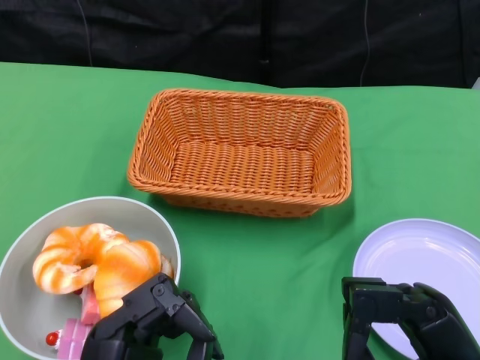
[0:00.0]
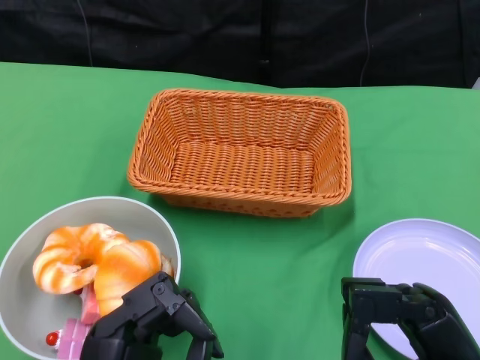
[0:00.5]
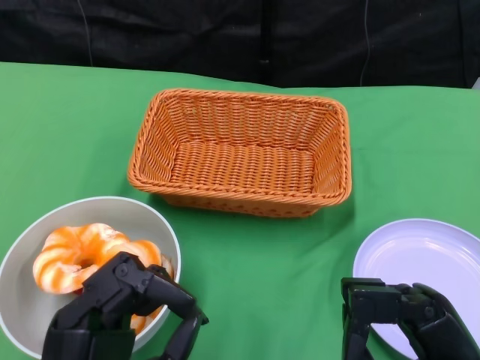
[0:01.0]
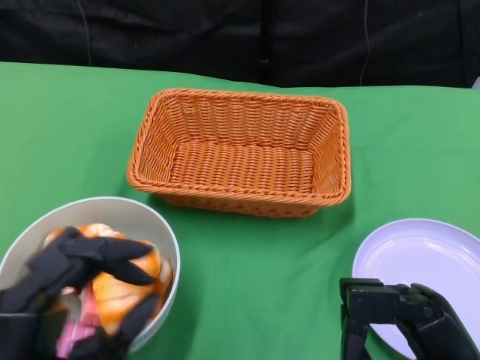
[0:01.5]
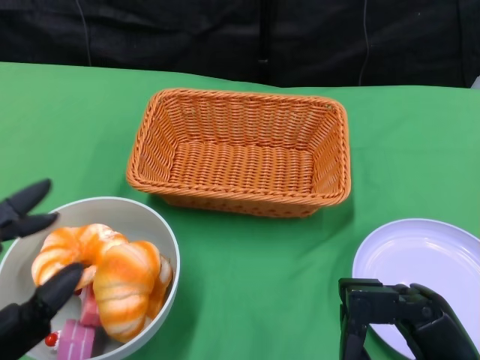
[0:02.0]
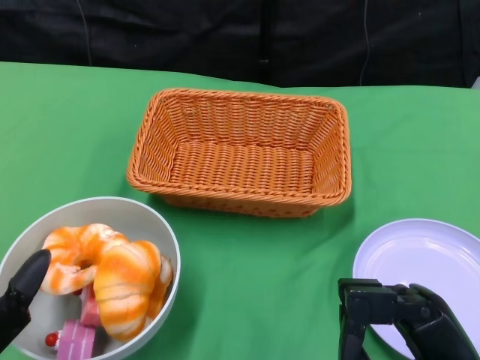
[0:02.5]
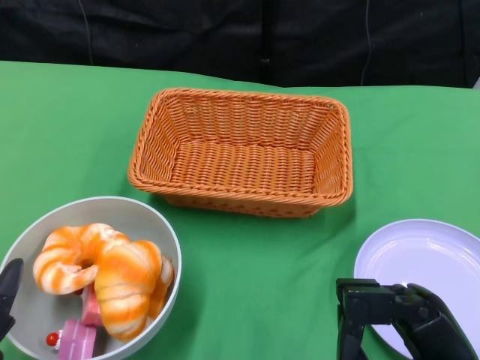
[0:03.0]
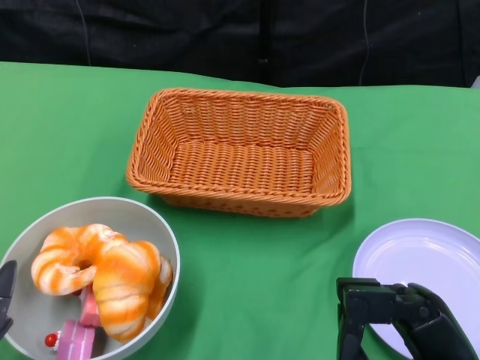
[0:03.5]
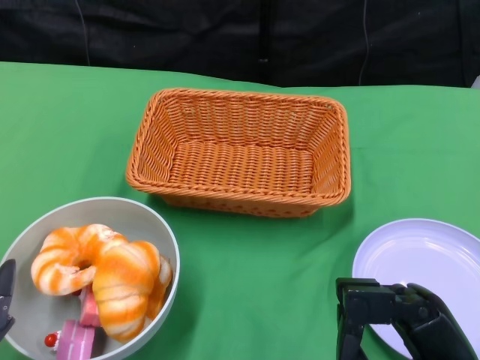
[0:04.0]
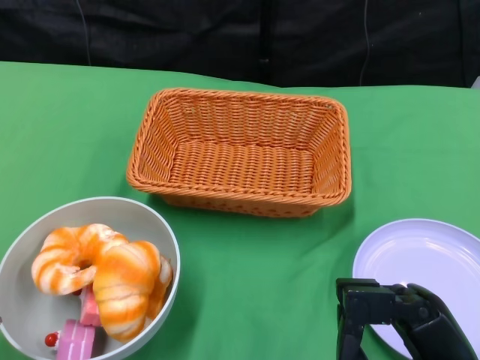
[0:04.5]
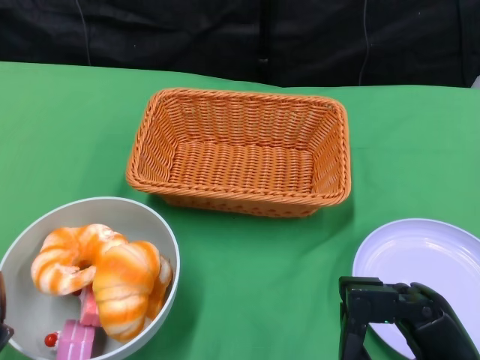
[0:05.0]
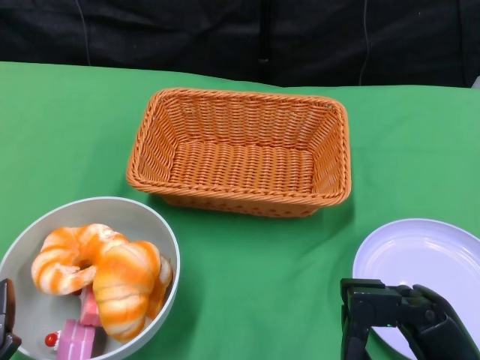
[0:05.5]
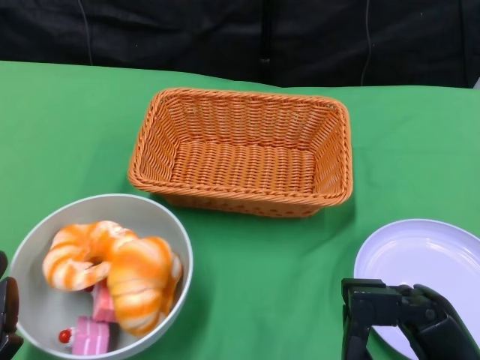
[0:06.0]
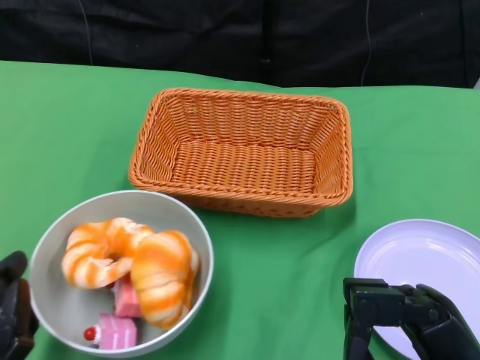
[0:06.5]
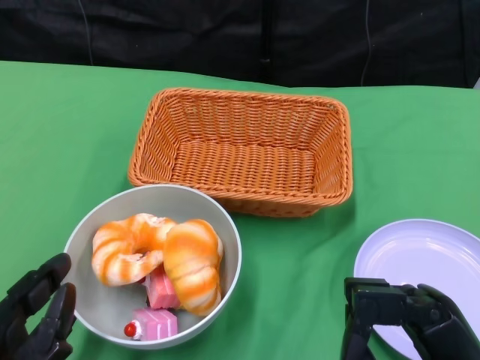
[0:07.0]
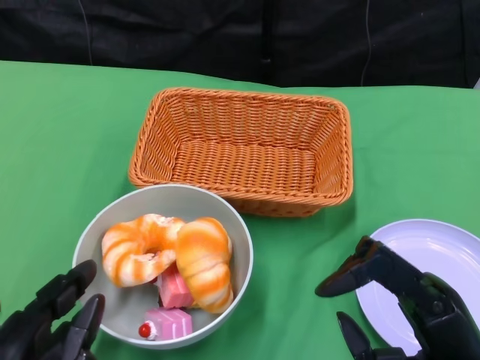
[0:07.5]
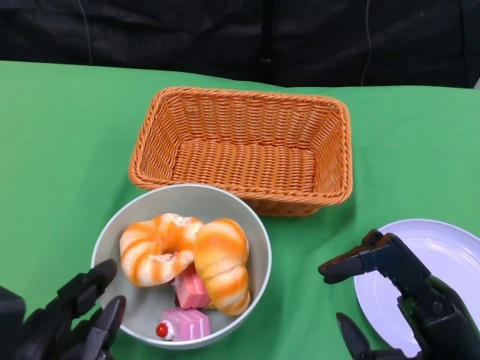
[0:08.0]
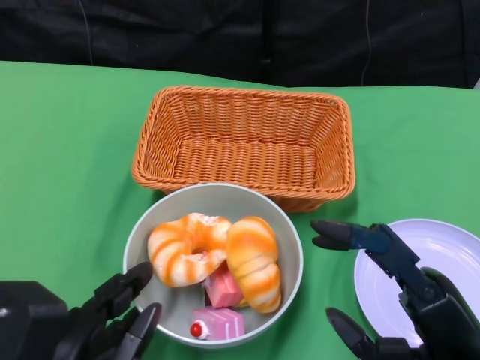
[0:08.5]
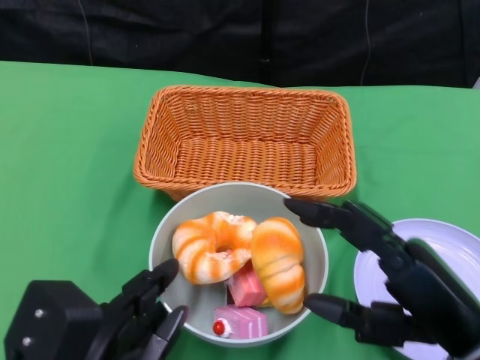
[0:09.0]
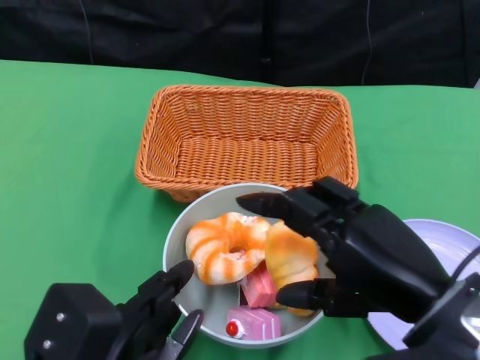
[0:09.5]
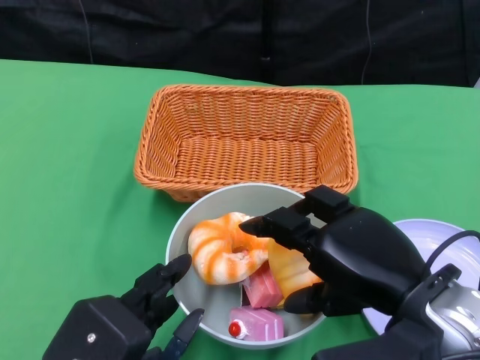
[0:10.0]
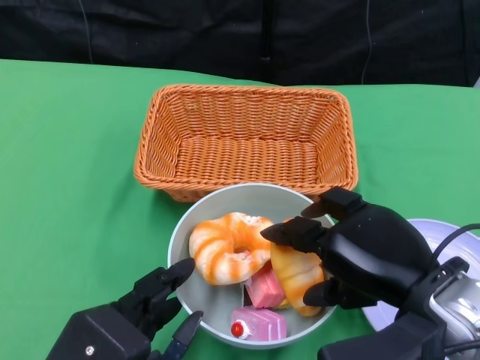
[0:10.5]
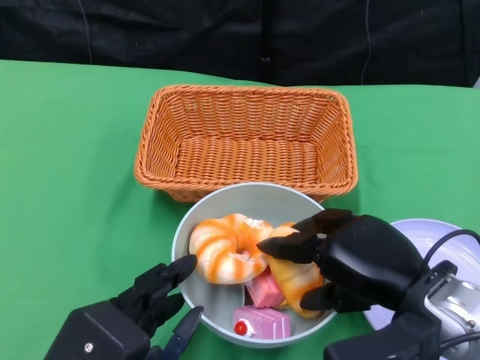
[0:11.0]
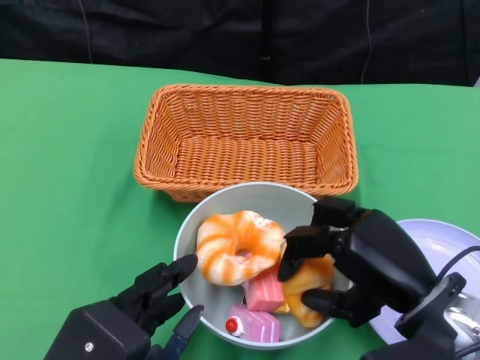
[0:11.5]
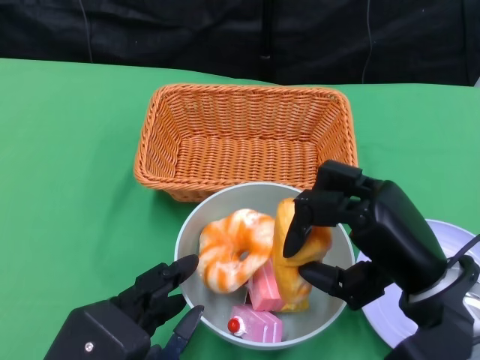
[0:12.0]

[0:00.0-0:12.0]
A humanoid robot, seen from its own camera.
Step, 0:00.0 to 0:09.5: Push the bowl to the center of the table using the left gripper.
0:08.0 to 0:10.0: The right hand is displaced upward and forward by roughly 10 cm. The left hand travels to the right by approximately 5 cm.

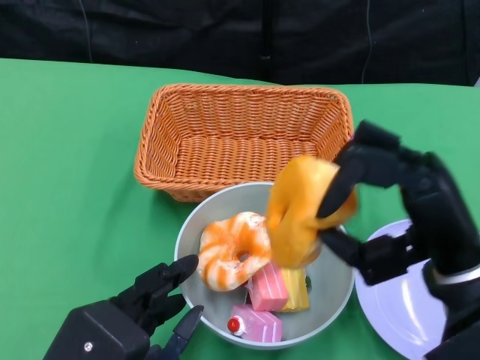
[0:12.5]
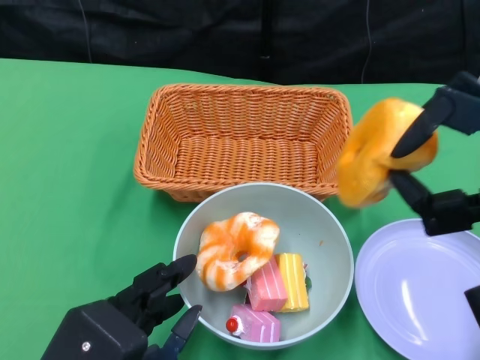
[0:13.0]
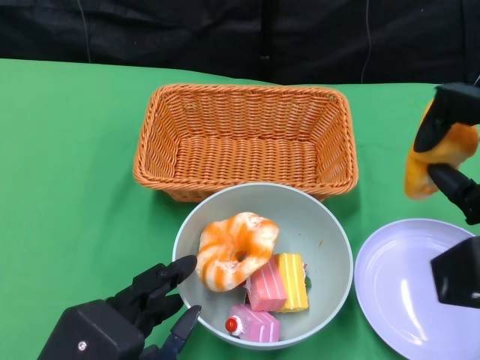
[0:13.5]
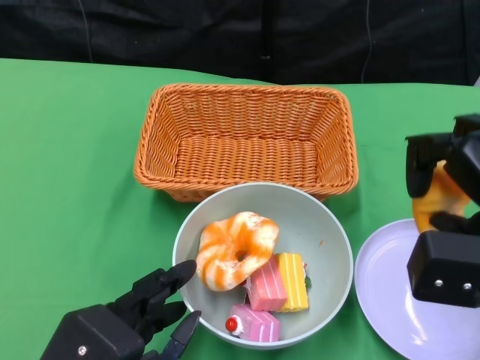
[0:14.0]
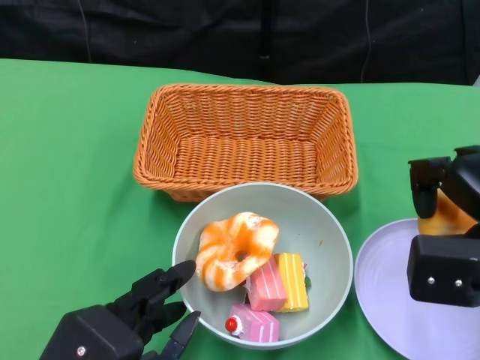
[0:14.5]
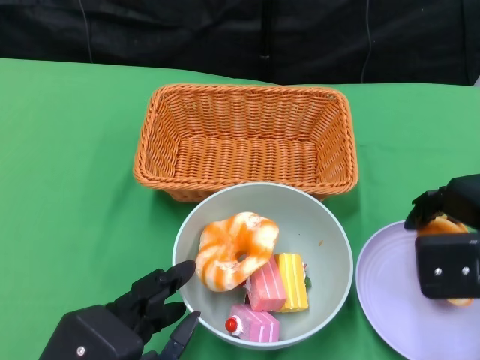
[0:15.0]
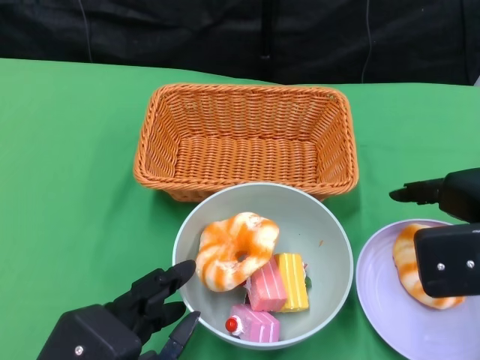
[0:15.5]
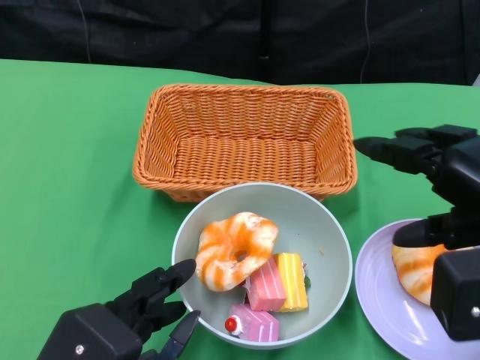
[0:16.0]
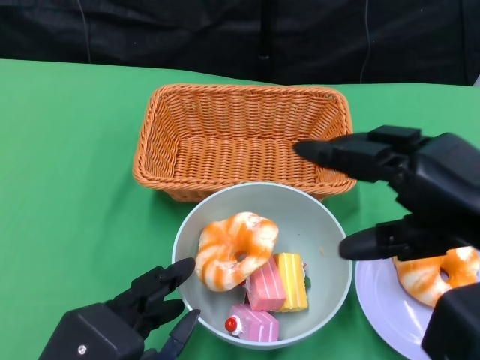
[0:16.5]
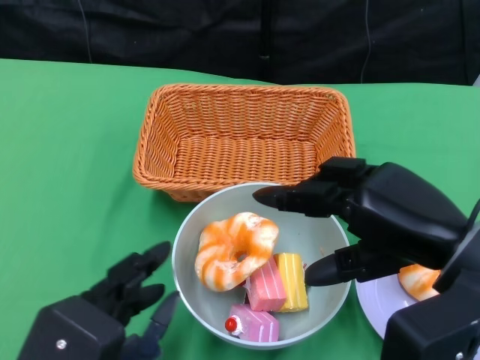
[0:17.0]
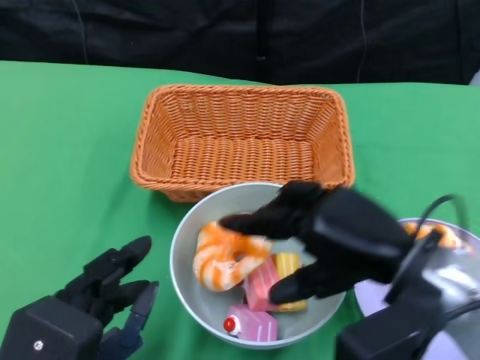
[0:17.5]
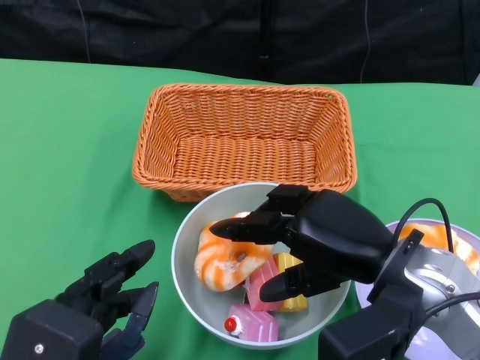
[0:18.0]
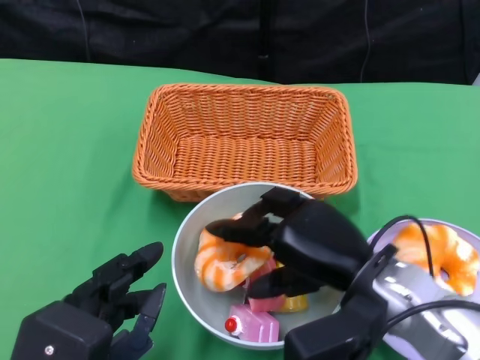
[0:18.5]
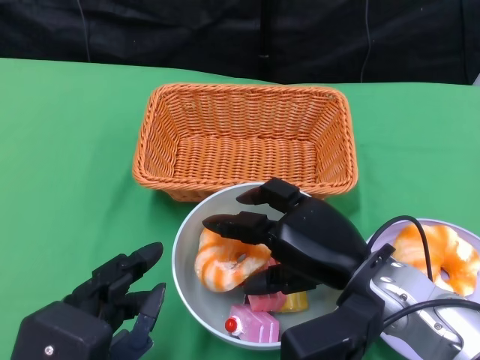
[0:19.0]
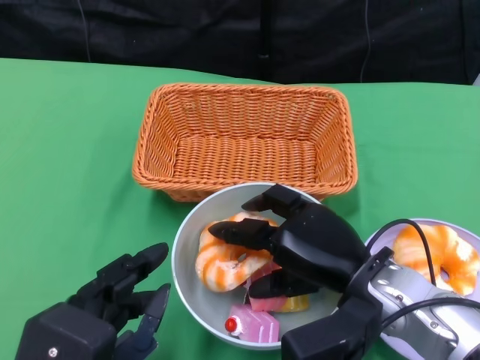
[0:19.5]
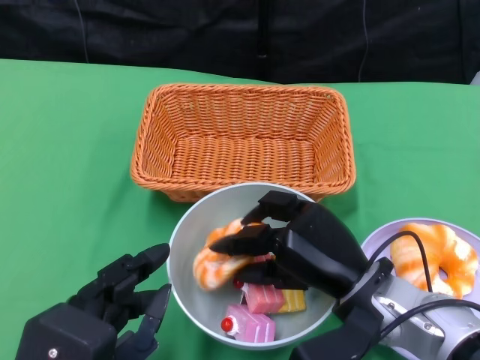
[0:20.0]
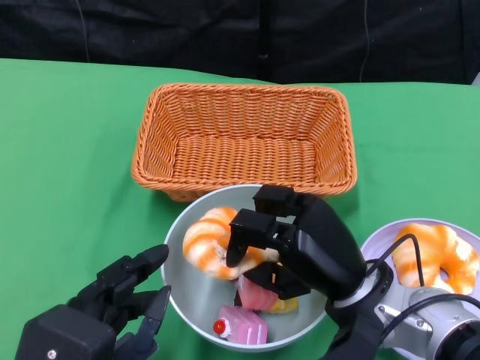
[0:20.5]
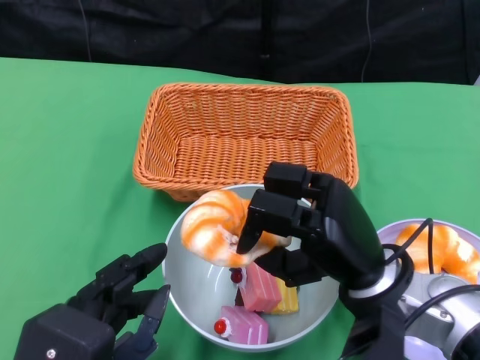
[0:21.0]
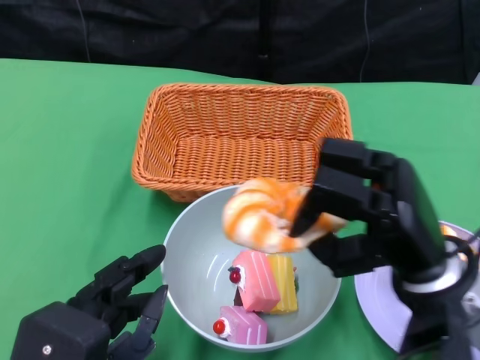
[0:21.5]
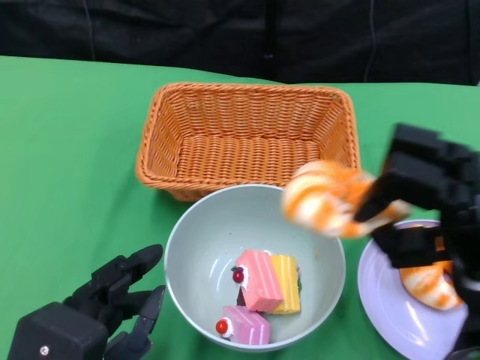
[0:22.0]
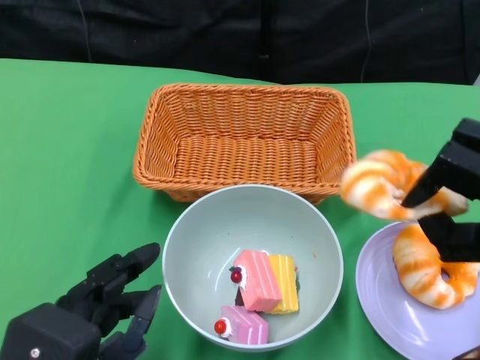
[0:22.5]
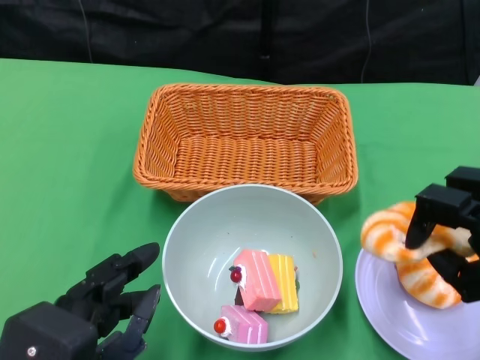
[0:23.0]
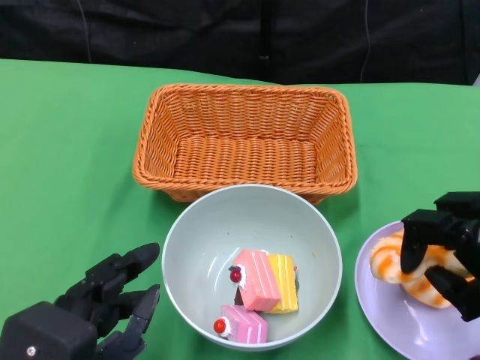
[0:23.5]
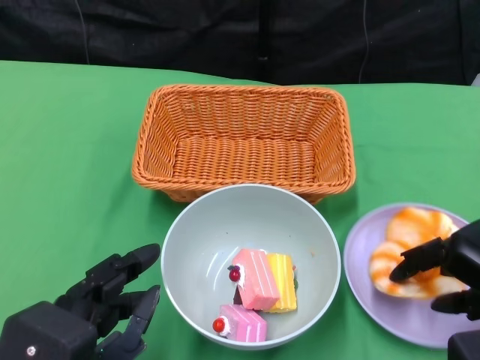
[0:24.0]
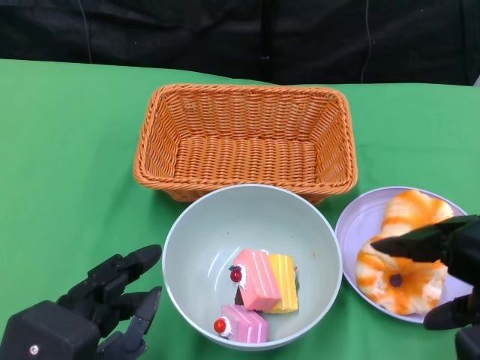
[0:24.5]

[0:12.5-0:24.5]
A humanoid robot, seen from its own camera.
0:12.5 to 0:14.5: The right hand shifts roughly 5 cm to the right.
0:14.5 to 0:16.5: The right hand heads upward, covering some 5 cm.
0:16.5 to 0:18.5: The right hand travels downward and to the left by approximately 15 cm.
0:20.5 to 0:22.5: The right hand goes approximately 15 cm to the right and upward.
0:22.5 to 0:24.5: The right hand shifts by approximately 5 cm.

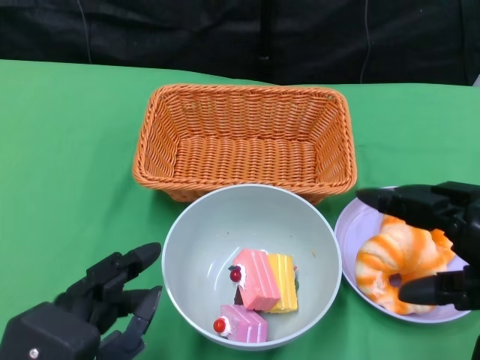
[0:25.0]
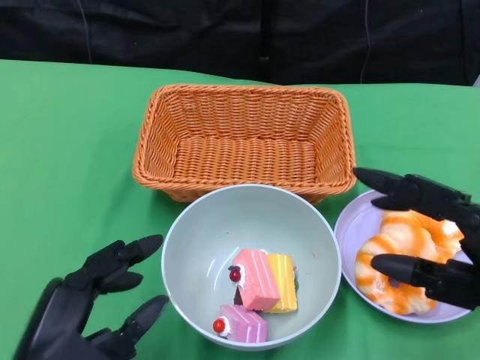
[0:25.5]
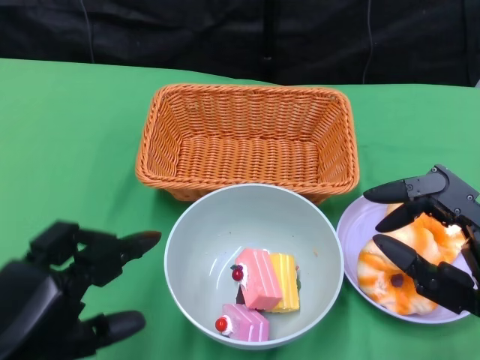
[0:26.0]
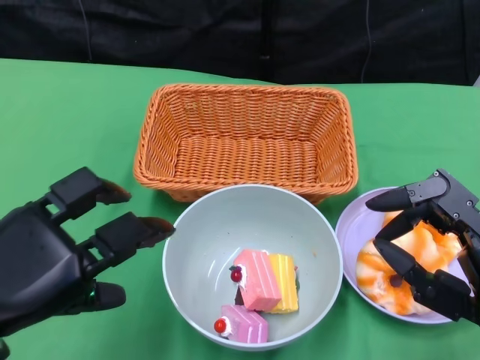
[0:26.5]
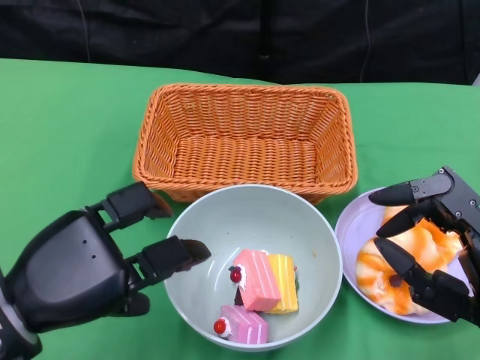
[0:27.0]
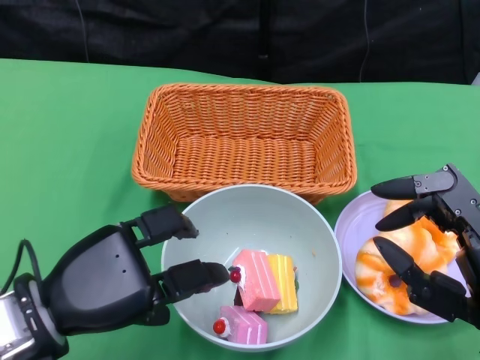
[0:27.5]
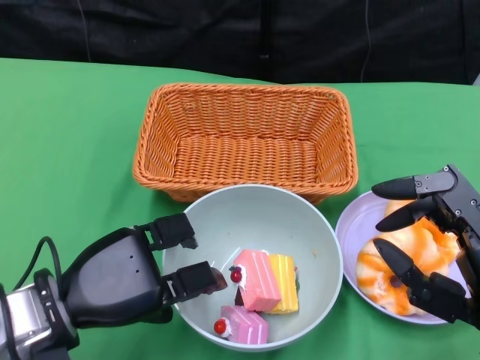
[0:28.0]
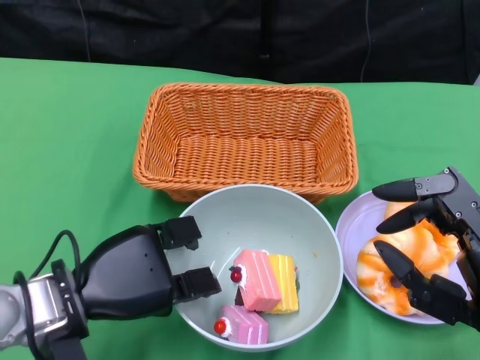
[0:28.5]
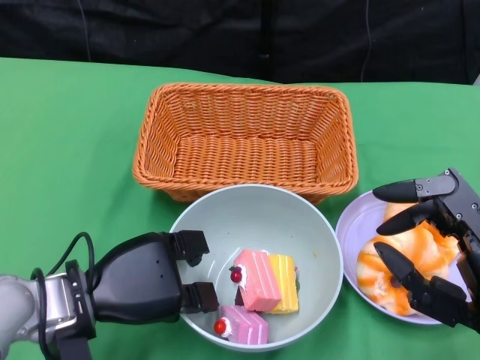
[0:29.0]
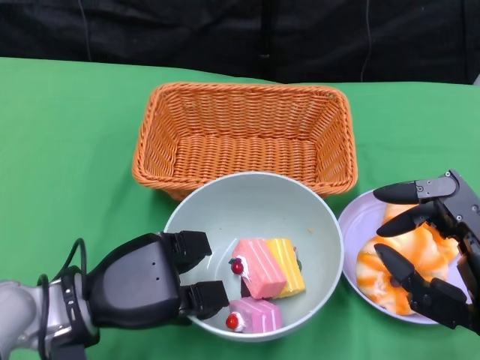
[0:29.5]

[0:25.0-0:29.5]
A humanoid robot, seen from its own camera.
Step, 0:25.0 to 0:29.0: Grasp the bowl with the left gripper.
0:25.0 to 0:27.0: The right hand heads downward, covering approximately 5 cm; the left hand is displaced forward by roughly 5 cm.
0:27.0 to 0:29.5: The left hand moves downward, about 5 cm.
